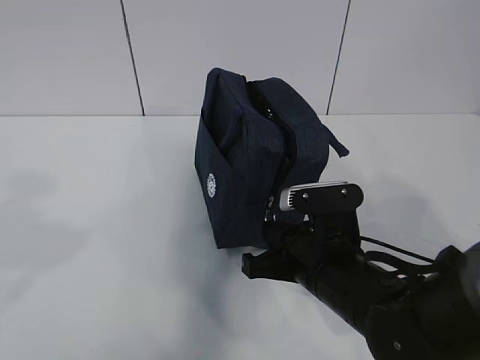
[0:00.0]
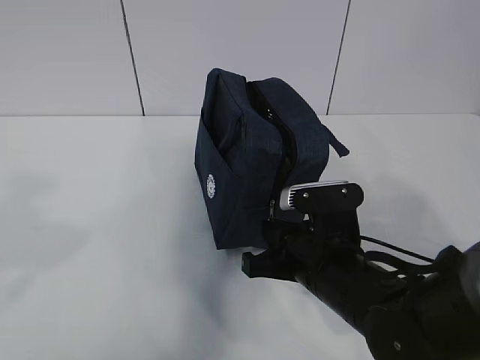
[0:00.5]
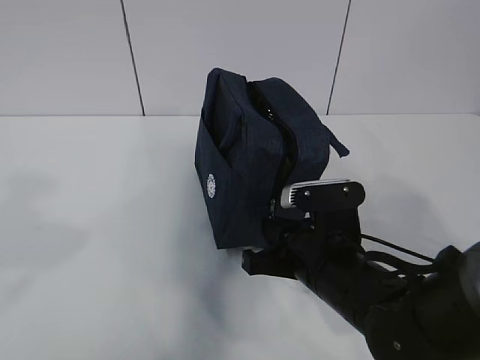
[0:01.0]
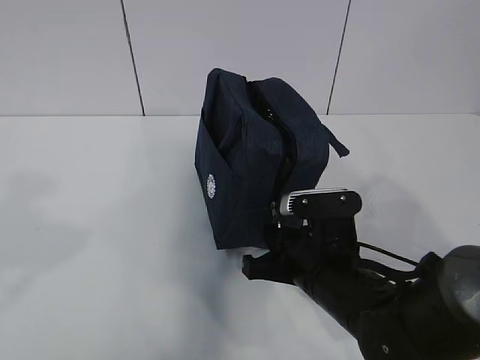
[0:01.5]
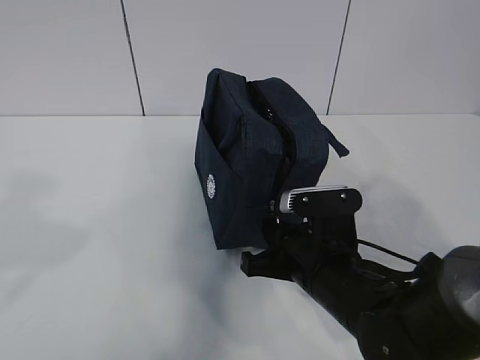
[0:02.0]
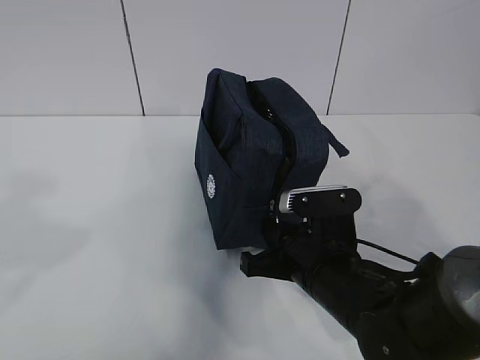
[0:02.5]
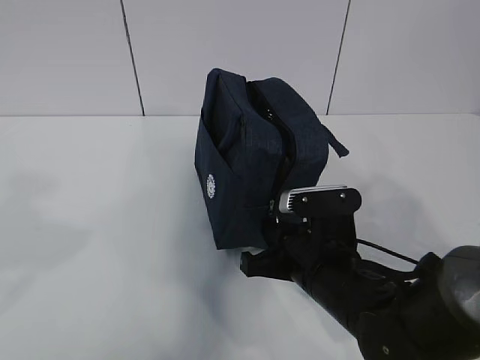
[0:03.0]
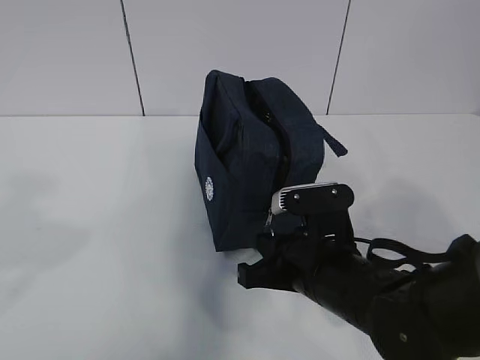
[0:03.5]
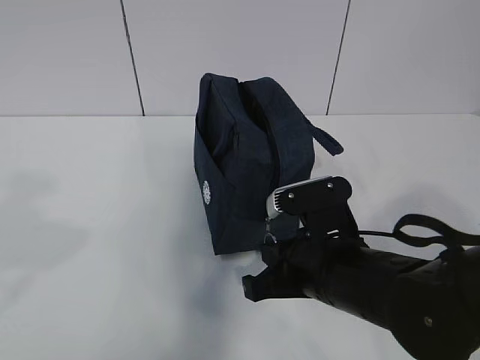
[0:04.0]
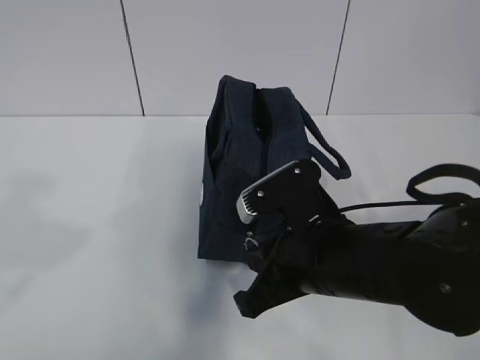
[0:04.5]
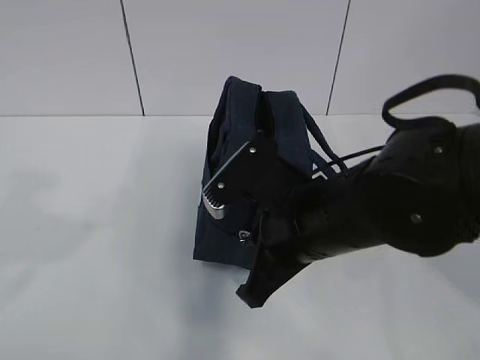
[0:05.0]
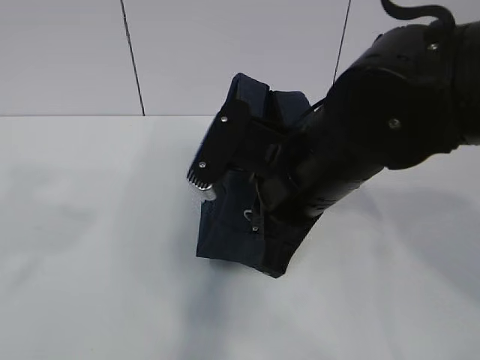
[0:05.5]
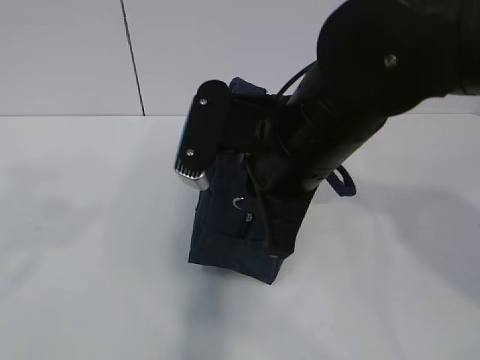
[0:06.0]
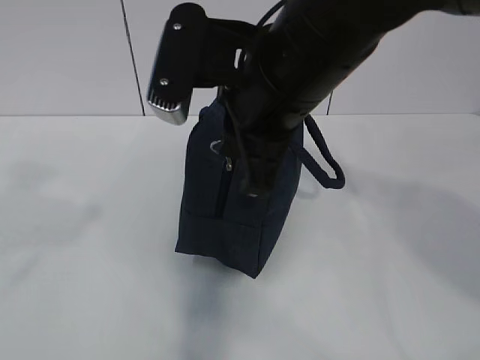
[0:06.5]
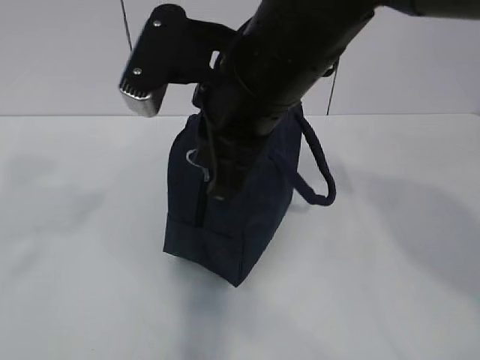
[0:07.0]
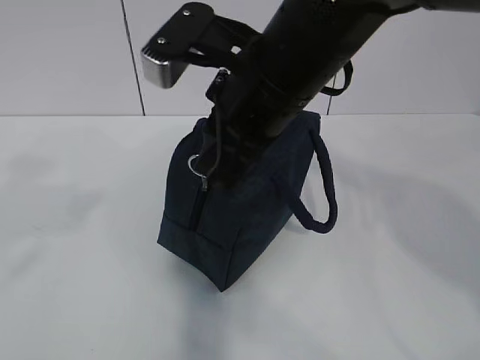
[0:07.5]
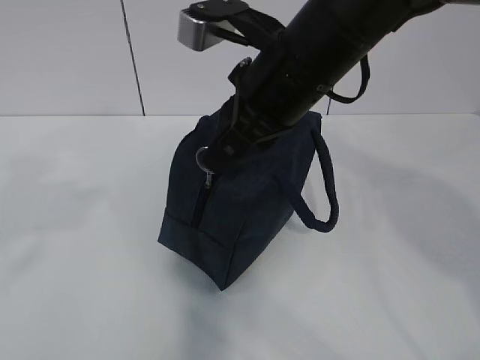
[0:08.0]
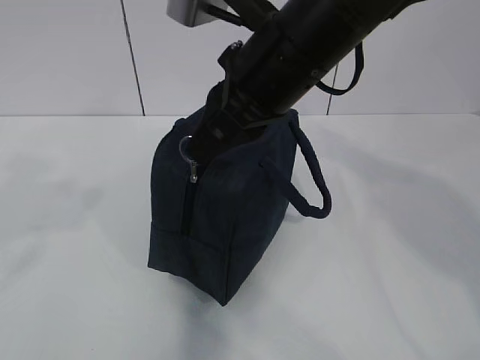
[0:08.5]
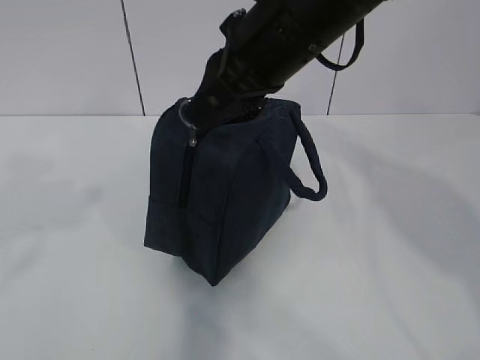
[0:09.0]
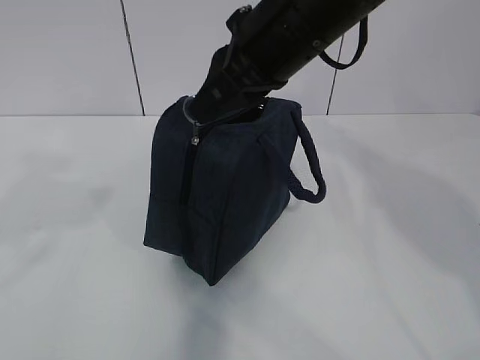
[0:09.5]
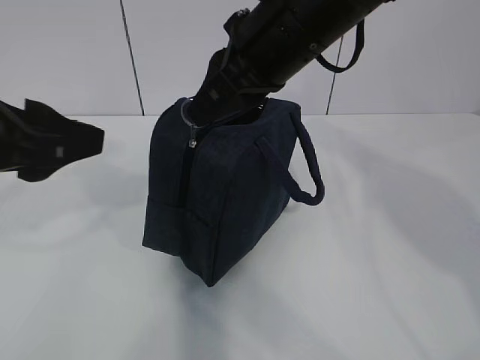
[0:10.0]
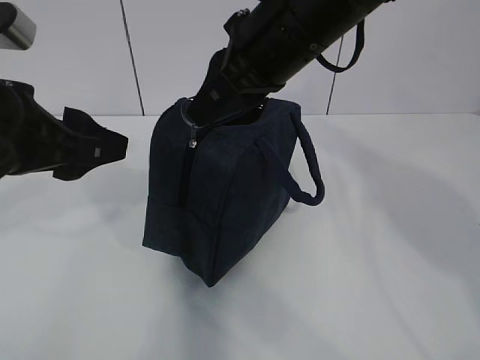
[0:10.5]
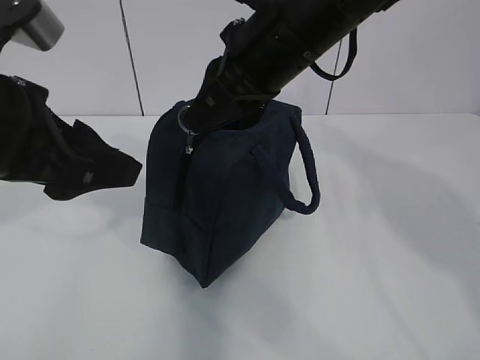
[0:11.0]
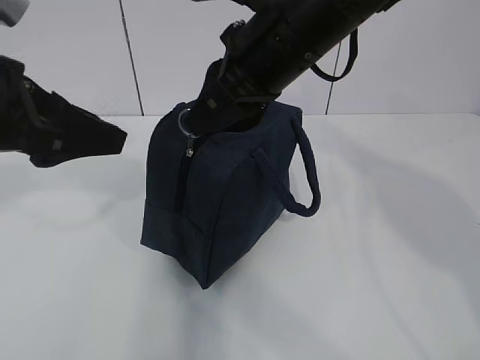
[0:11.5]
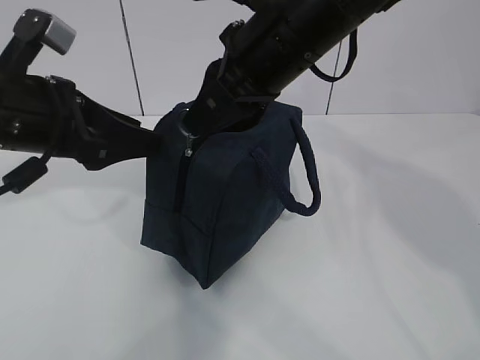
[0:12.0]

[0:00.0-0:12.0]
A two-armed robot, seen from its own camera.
Step, 0:00.0 to 0:10.0: Grab the lunch bag with your left hand.
0:00.0 to 0:02.0: Neither gripper changes place.
0:02.0 to 0:04.0: The grippers move only a little.
0:04.0 to 0:06.0: The right gripper moves upward, about 15 cm.
0:06.0 to 0:08.0: The right gripper goes approximately 5 cm forward.
0:08.0 to 0:10.0: The left gripper is displaced forward, to the right and downward by approximately 10 cm.
0:10.0 to 0:12.0: The left gripper travels forward by some 10 cm.

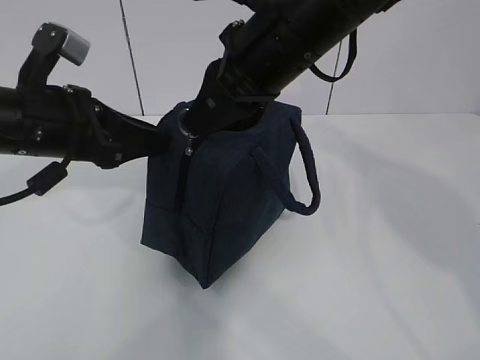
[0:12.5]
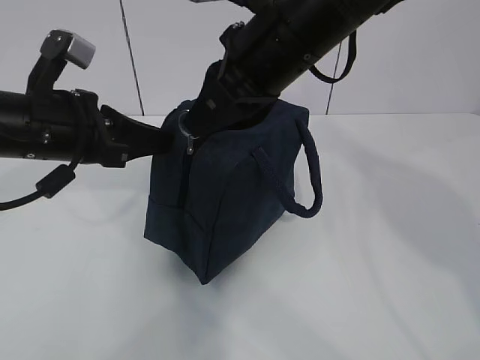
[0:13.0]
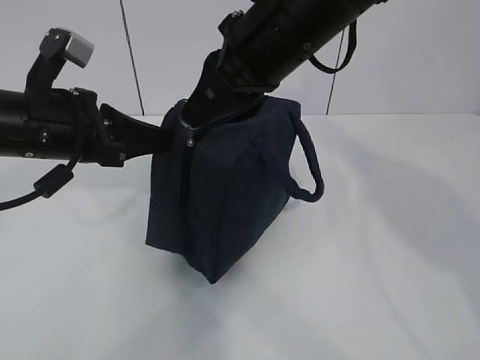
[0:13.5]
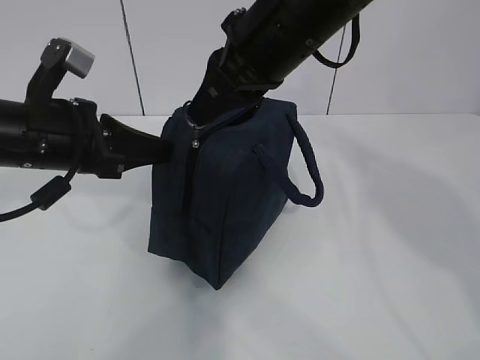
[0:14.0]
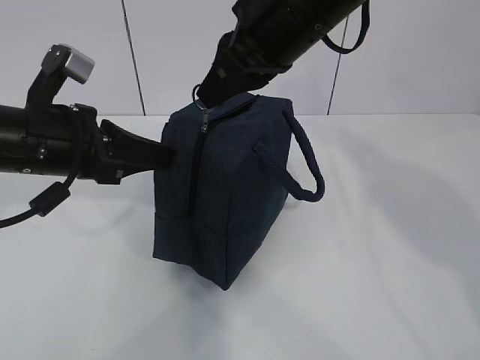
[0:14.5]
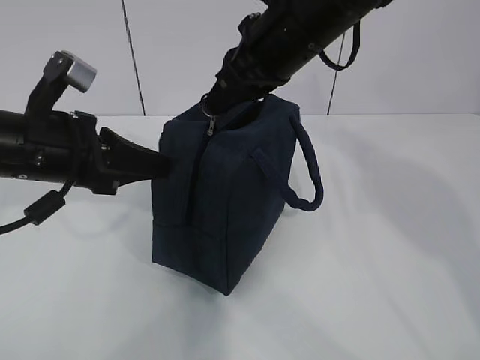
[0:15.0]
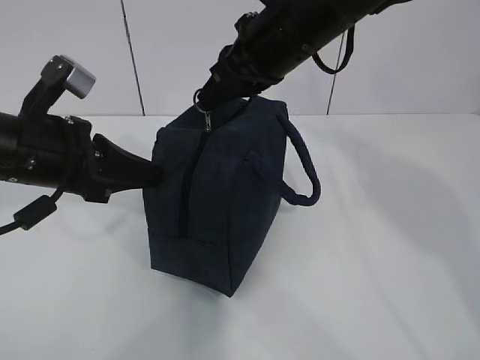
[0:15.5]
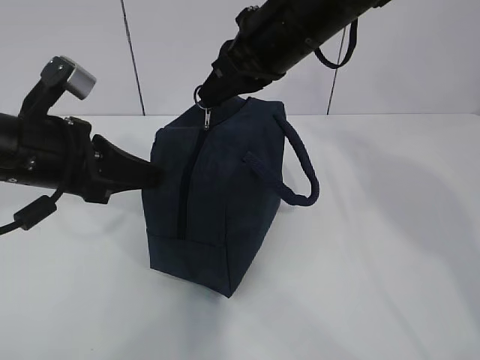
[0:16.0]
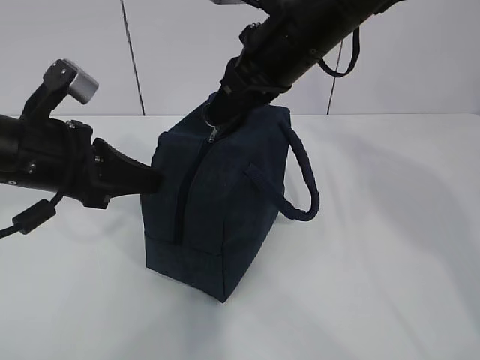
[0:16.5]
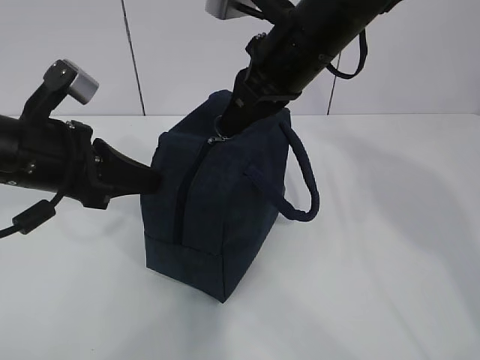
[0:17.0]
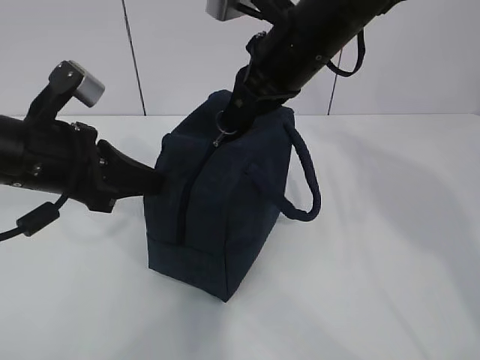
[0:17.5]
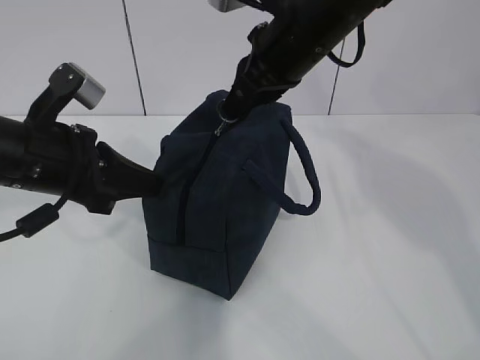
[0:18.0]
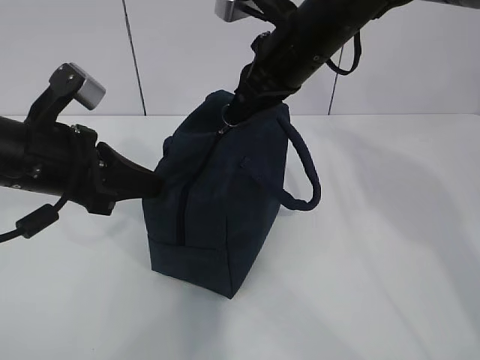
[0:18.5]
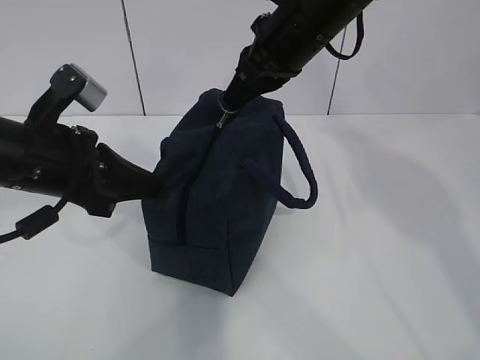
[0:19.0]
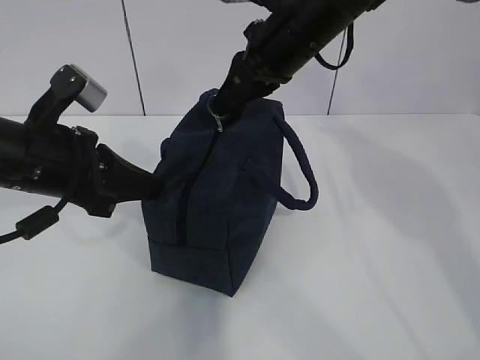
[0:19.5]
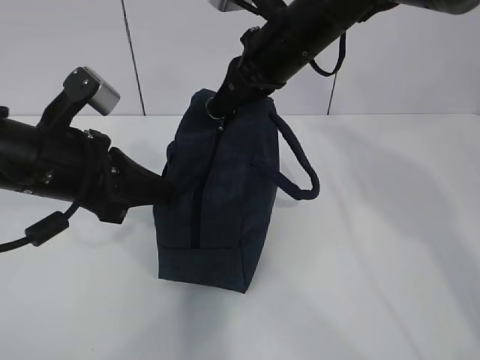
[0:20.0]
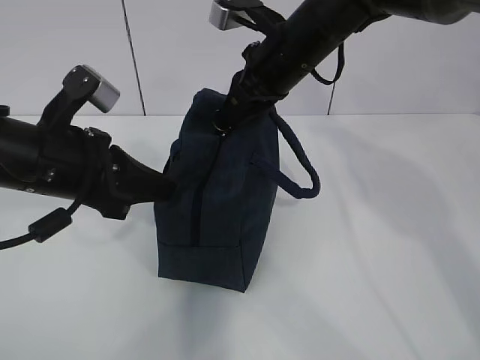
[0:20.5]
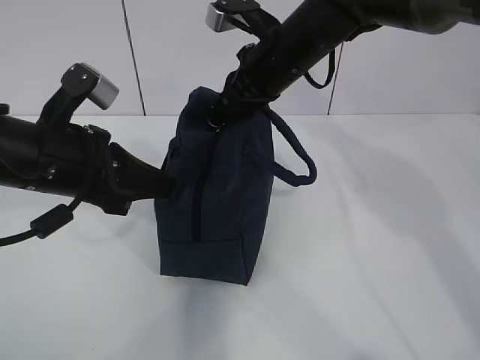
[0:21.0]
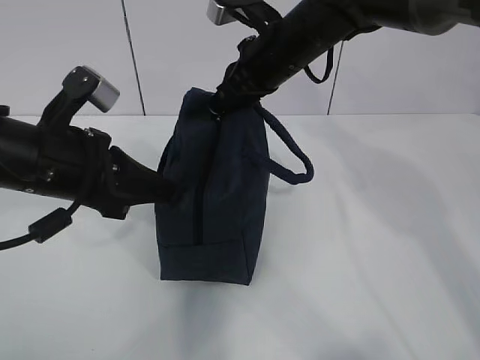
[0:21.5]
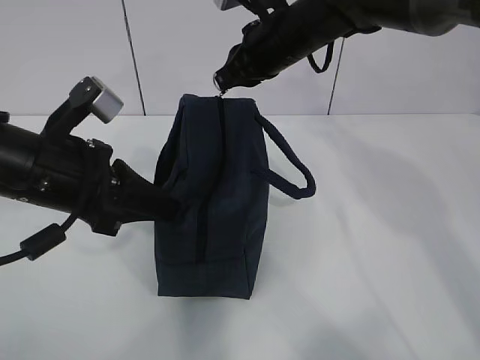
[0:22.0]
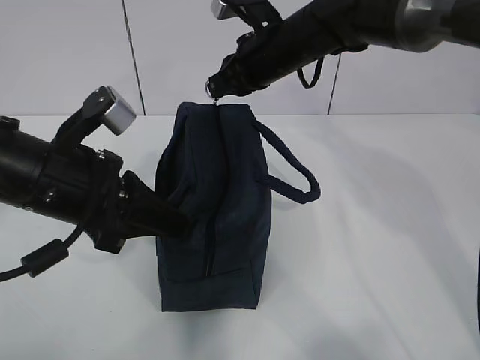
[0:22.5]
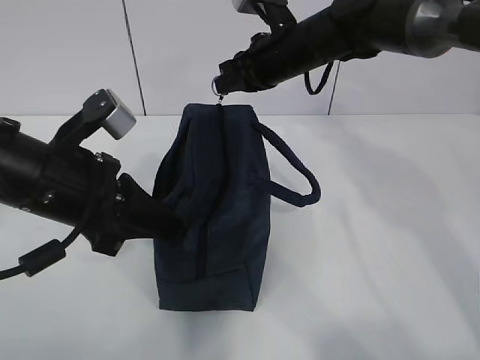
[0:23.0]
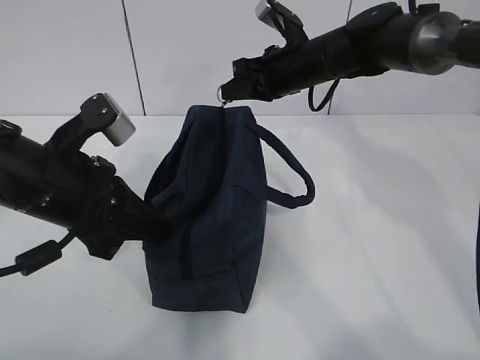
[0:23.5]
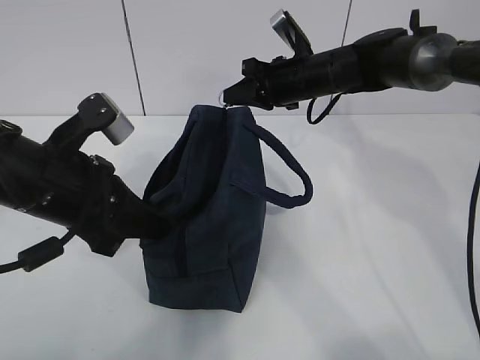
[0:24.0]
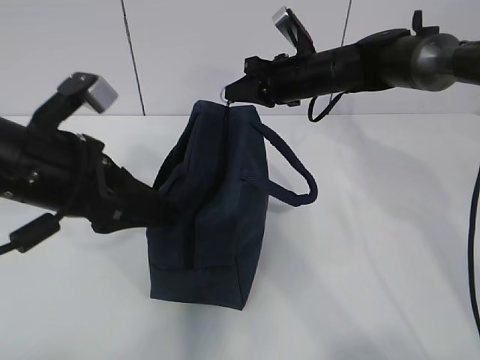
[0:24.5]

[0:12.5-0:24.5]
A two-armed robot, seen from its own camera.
Step, 0:12.5 to 0:15.5: Pull the zipper with your right hand.
0:12.5 to 0:14.5: The left gripper closes up.
0:14.5 to 0:16.5: The grippers stay close to where they were, moving slightly.
0:16.5 to 0:18.5: The grippers make only small movements.
0:18.5 to 0:20.5: There are only small adjustments of the grippers.
0:22.5 to 0:24.5: The right gripper moves downward, some 5 cm. Meanwhile the left gripper opens its fingers.

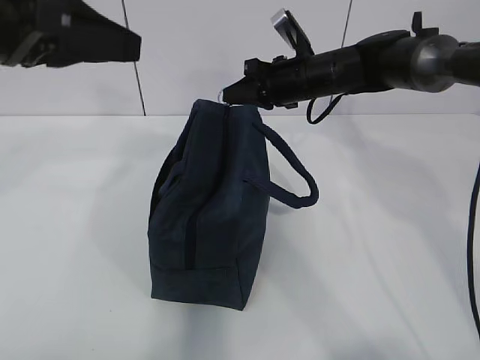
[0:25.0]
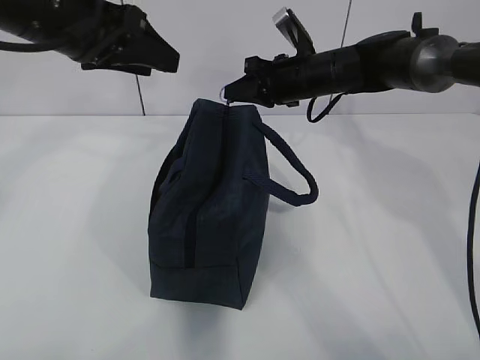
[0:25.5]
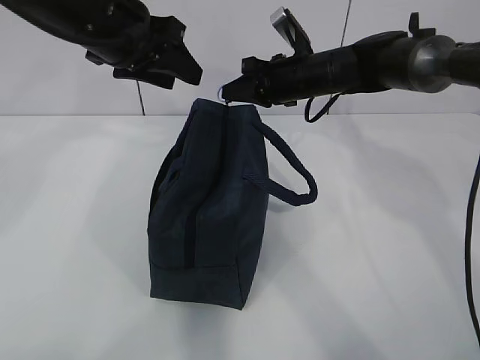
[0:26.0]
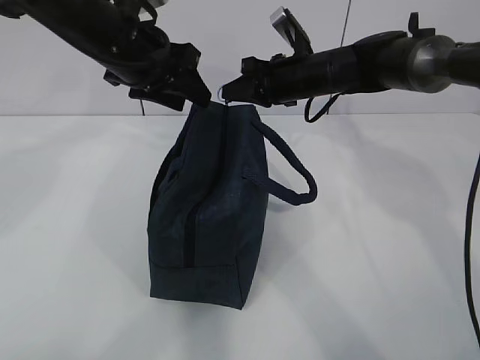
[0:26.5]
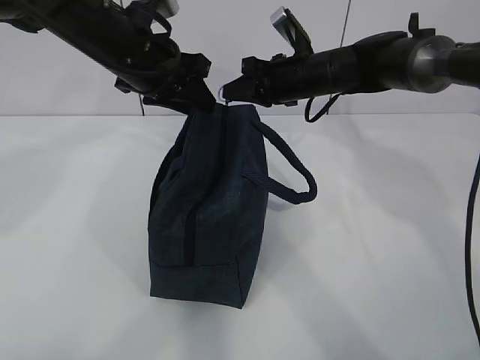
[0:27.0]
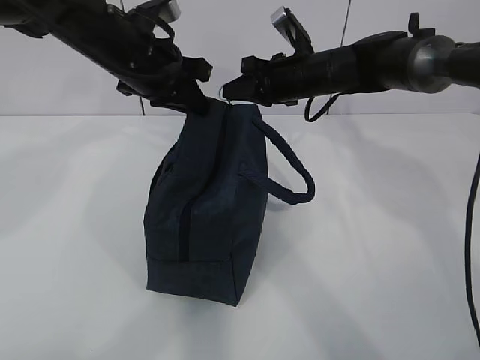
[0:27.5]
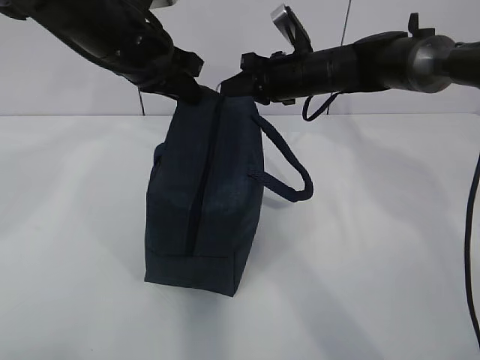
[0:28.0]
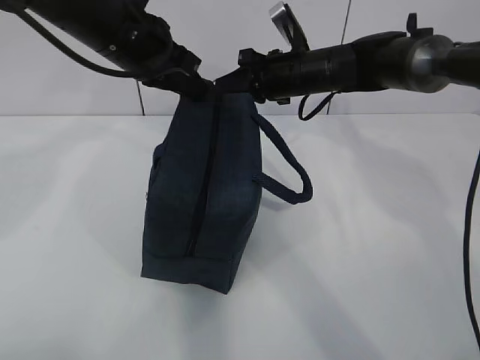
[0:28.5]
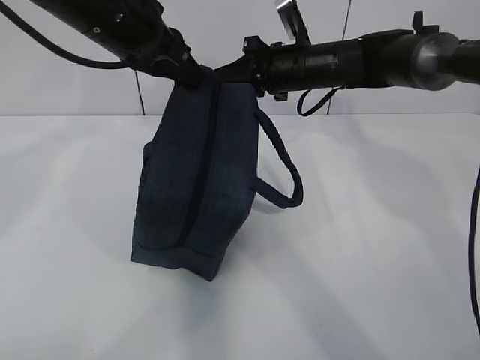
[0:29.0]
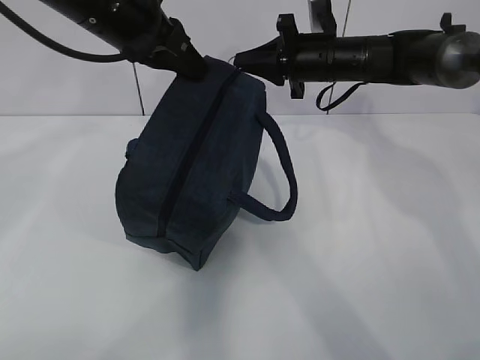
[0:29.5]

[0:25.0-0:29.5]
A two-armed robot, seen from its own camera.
0:25.0 to 0:27.0: The left gripper shifts approximately 20 cm forward, downward and to the right.
0:27.0 to 0:29.5: The left gripper travels upward by approximately 5 cm, and closes up.
